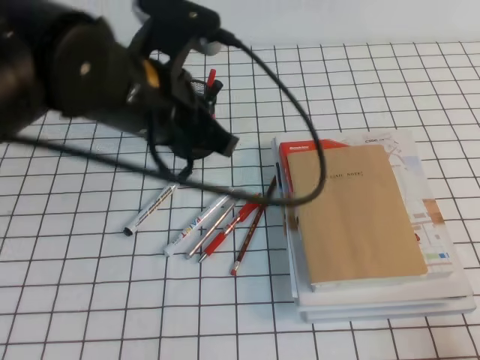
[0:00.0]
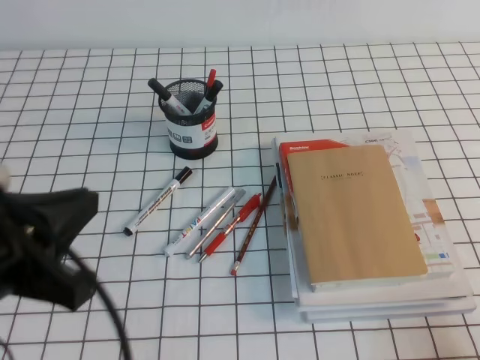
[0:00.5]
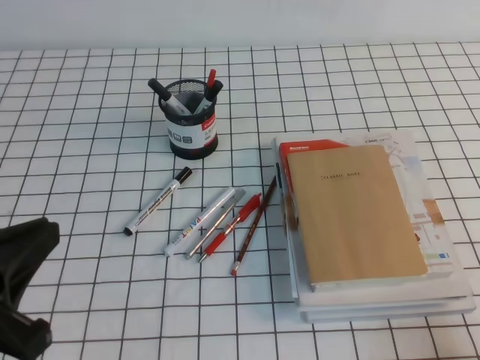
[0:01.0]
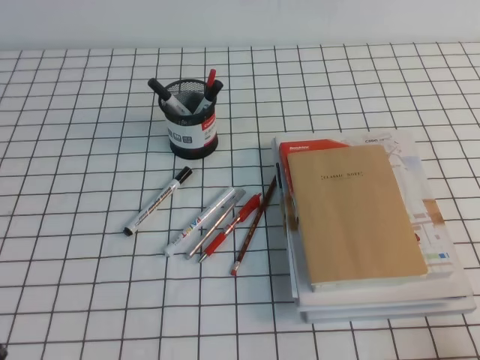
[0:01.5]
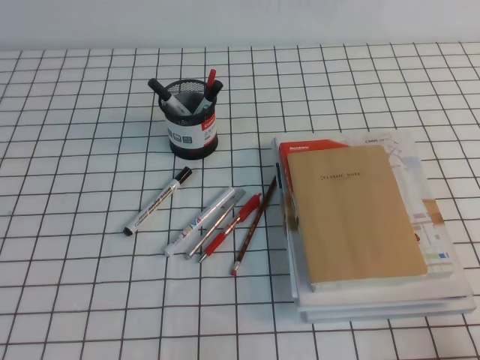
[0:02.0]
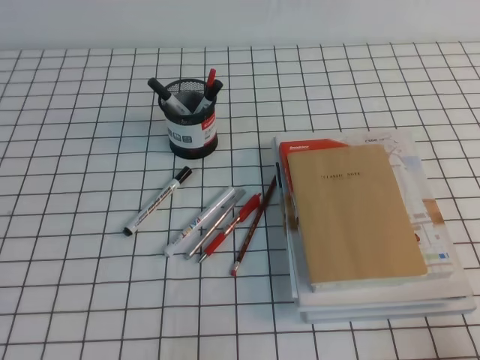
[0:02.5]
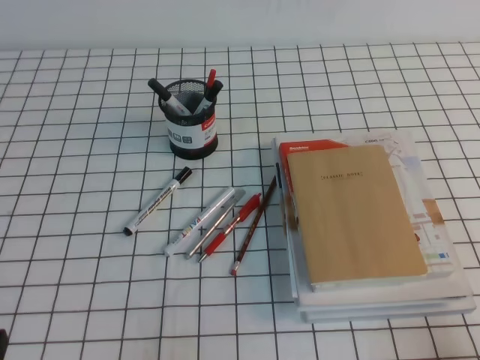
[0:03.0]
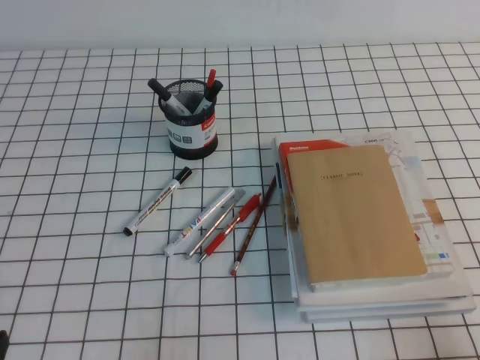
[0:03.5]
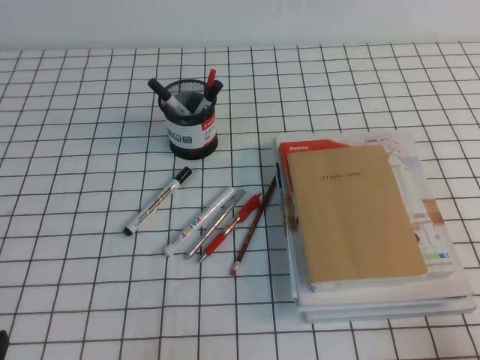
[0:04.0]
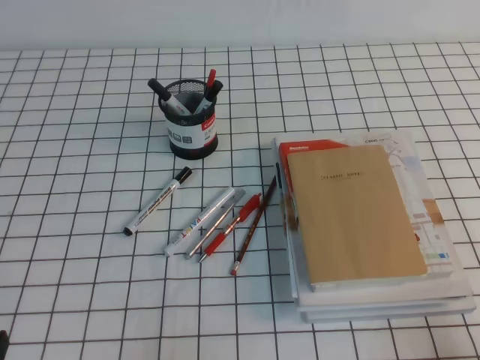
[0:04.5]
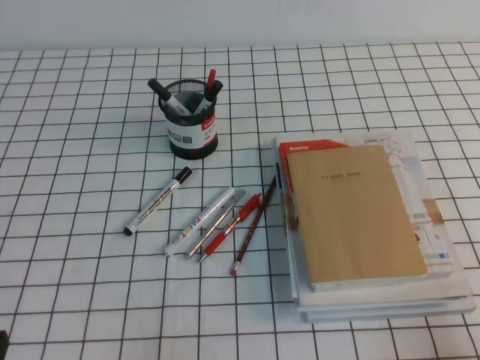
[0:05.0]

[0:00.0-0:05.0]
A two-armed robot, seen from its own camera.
Step, 0:00.0 to 0:05.0: Pick up the pen from the pen holder.
0:00.0 to 0:02.5: The left gripper heads backward, to the left and downward, covering some 35 cm.

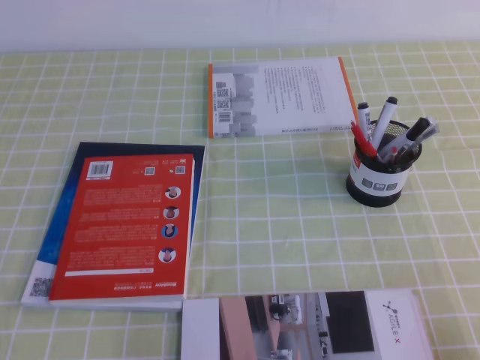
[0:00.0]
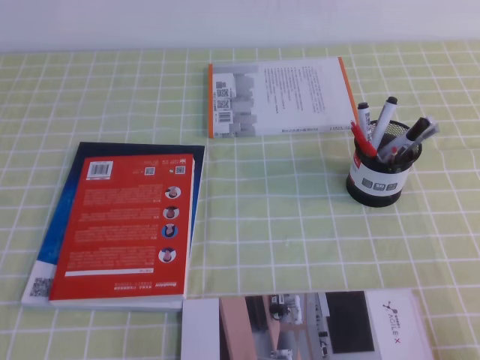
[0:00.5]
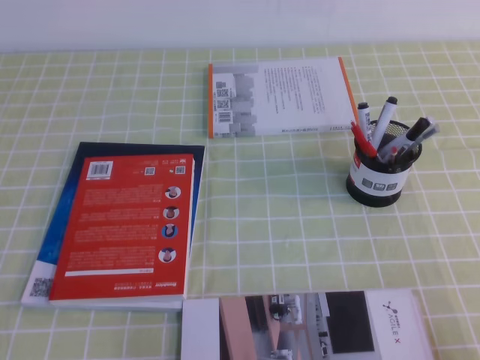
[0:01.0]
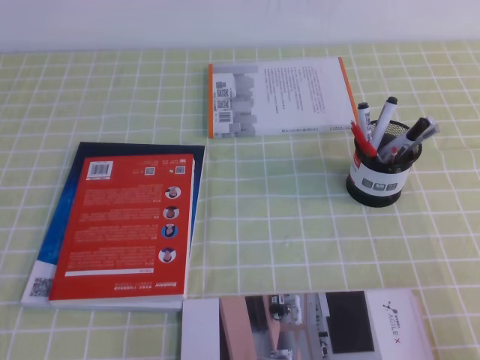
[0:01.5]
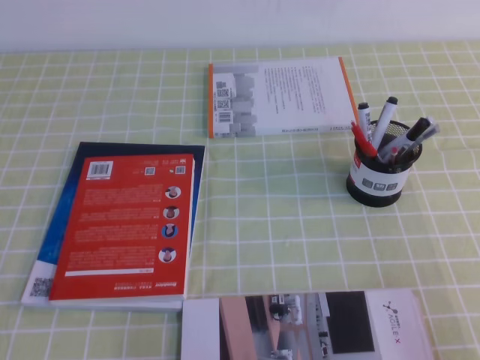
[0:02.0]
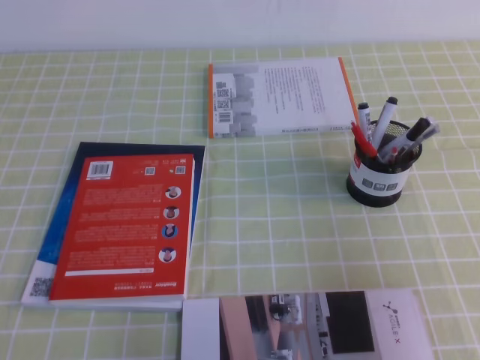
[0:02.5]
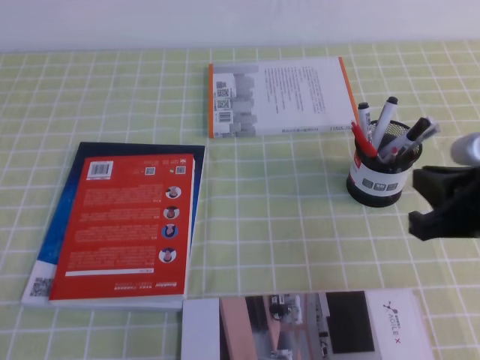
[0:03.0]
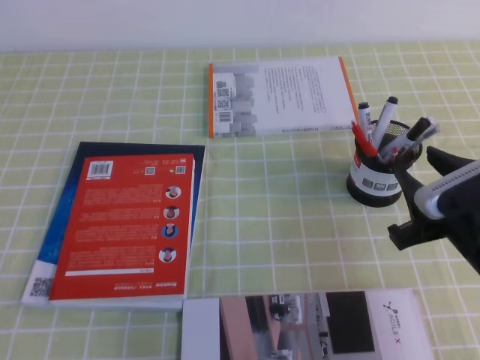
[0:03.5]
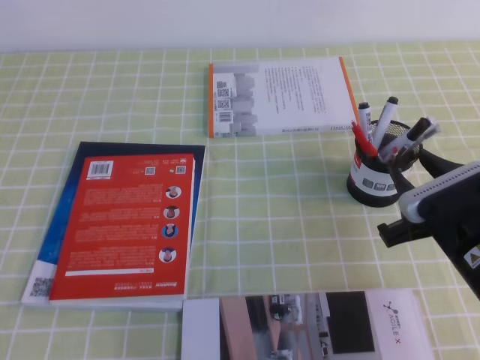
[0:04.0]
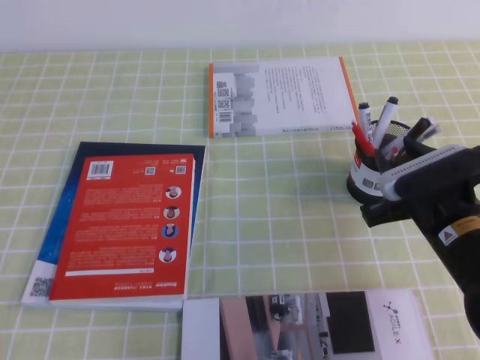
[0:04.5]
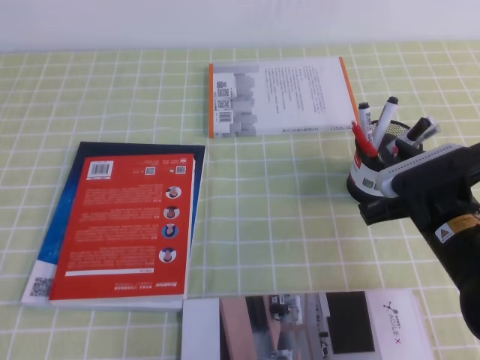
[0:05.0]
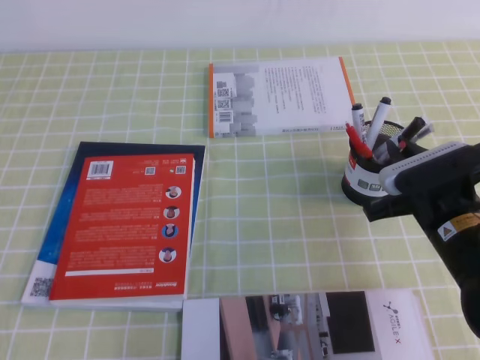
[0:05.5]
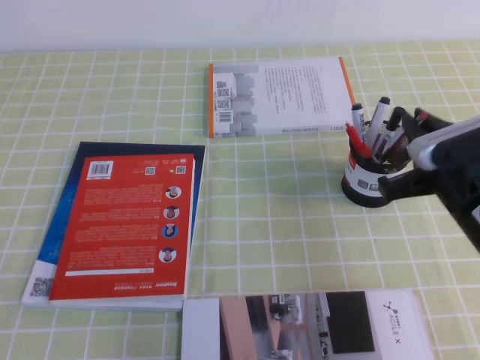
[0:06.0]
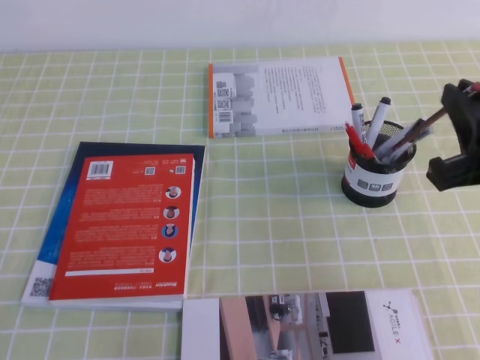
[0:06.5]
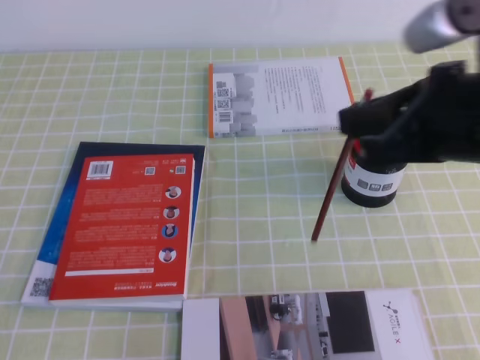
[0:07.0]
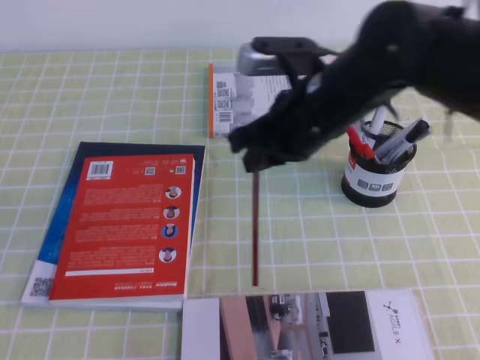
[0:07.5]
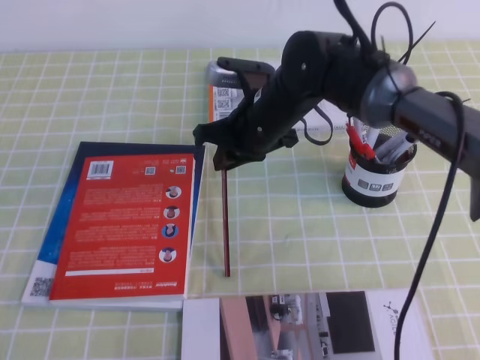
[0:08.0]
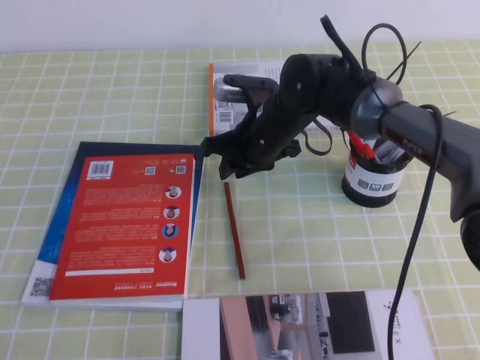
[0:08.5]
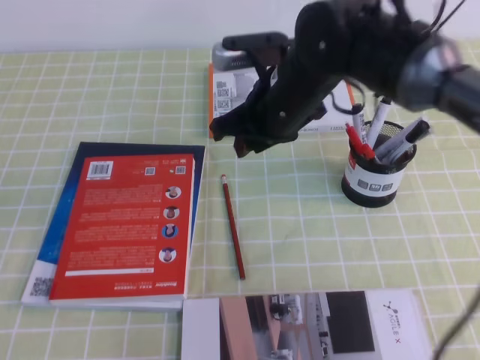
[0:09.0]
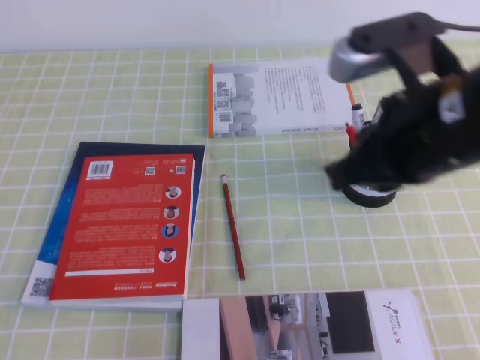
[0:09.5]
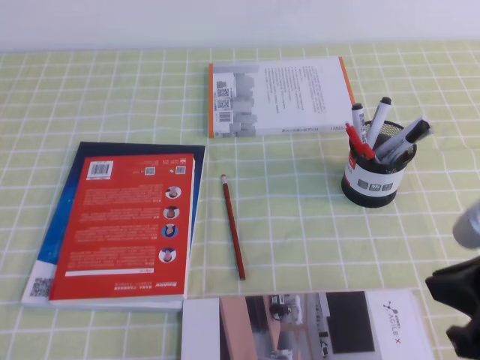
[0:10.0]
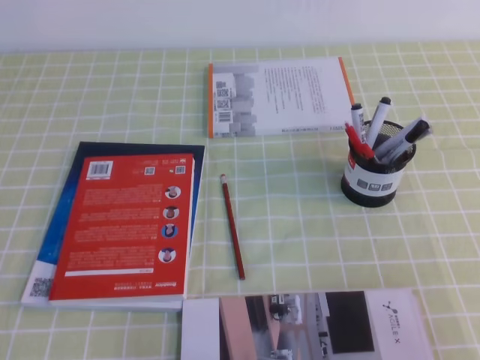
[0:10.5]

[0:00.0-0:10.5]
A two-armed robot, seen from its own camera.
0:02.0 to 0:04.0: The right gripper travels forward and to the left by about 20 cm, and opens up.
0:04.0 to 0:06.5: The right gripper moves upward, roughly 10 cm, and closes its fingers.
0:06.5 to 0:08.5: The right gripper shifts approximately 30 cm forward, to the left and downward, and opens up.
0:08.5 to 0:10.5: The right gripper travels backward and to the right by roughly 40 cm, and closes.

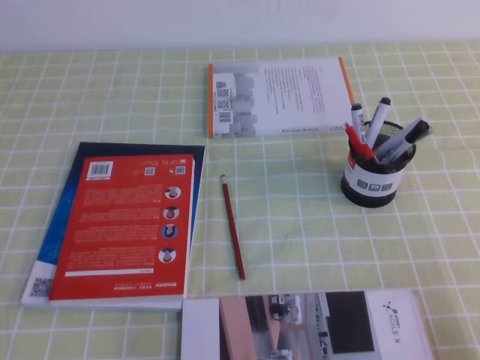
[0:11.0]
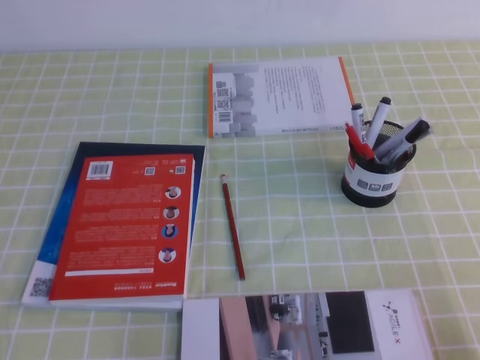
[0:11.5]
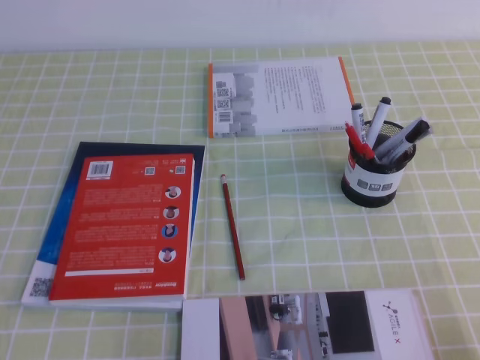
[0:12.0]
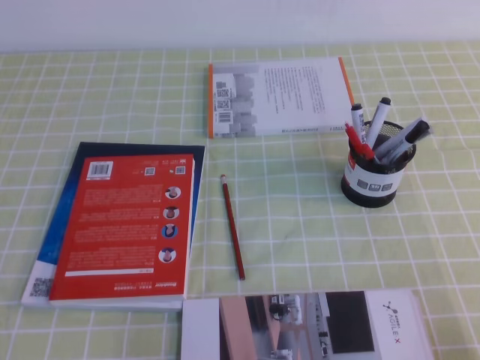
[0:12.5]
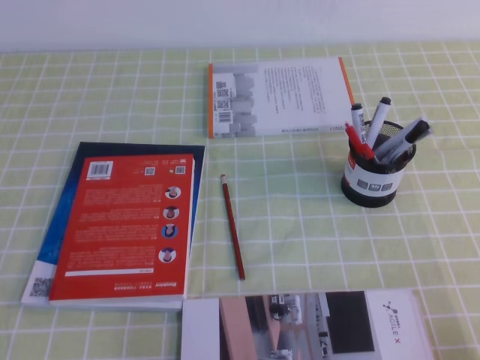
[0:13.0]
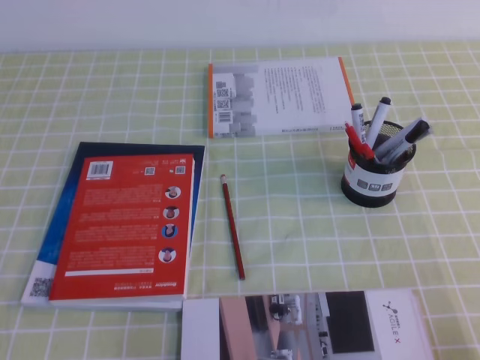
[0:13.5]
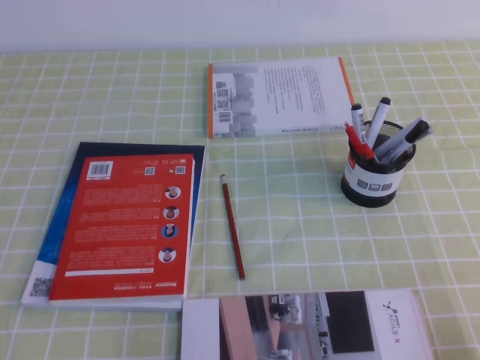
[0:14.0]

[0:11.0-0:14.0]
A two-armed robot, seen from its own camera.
0:12.5 to 0:14.0: The two grippers keep their place.
